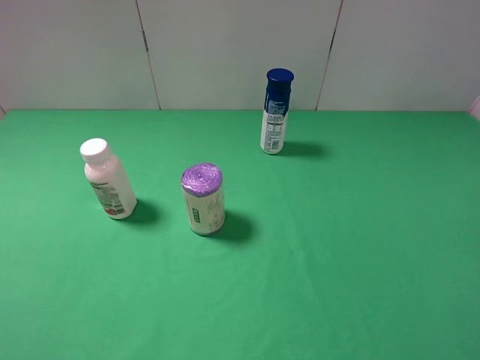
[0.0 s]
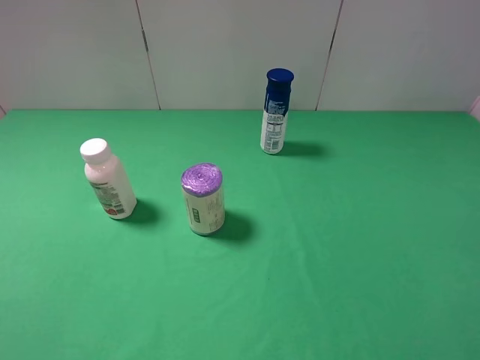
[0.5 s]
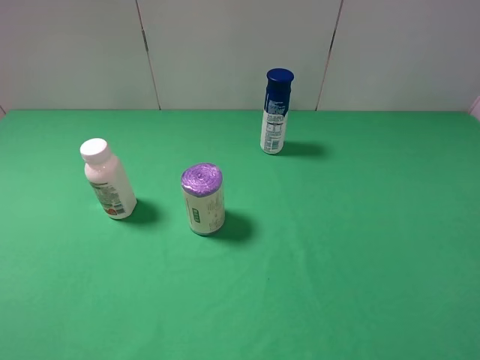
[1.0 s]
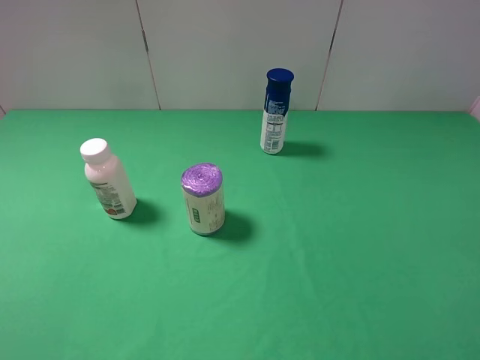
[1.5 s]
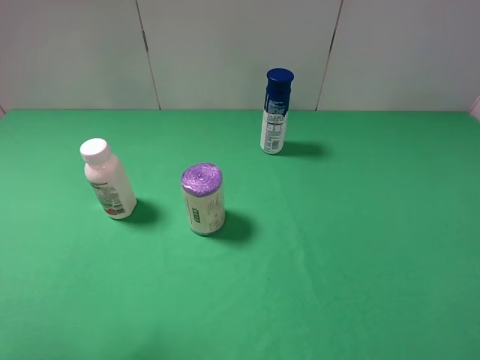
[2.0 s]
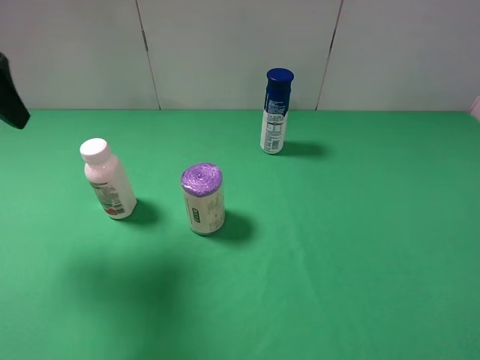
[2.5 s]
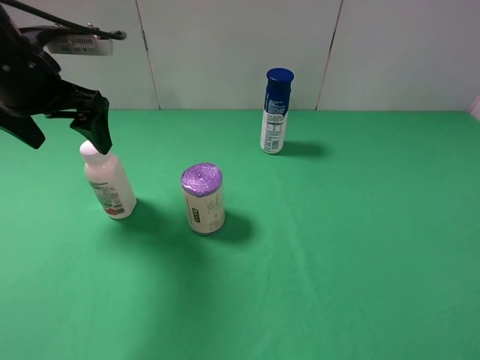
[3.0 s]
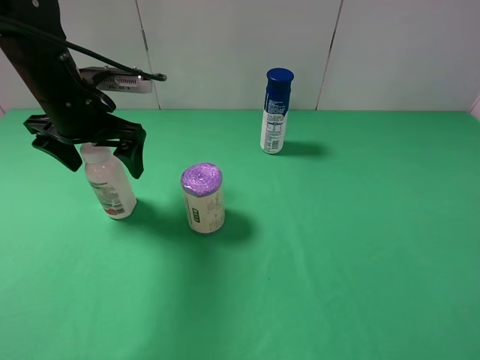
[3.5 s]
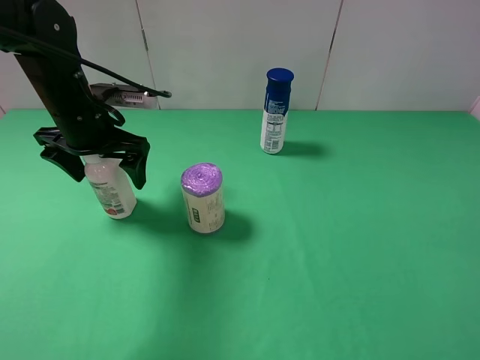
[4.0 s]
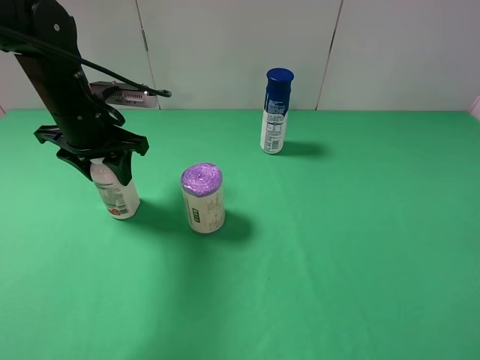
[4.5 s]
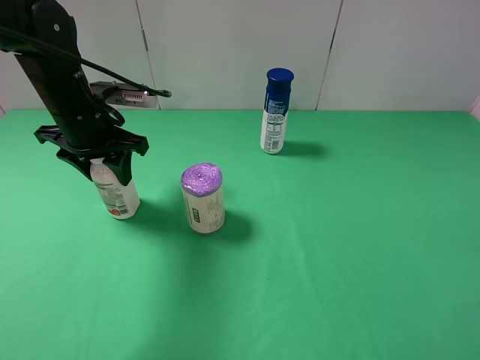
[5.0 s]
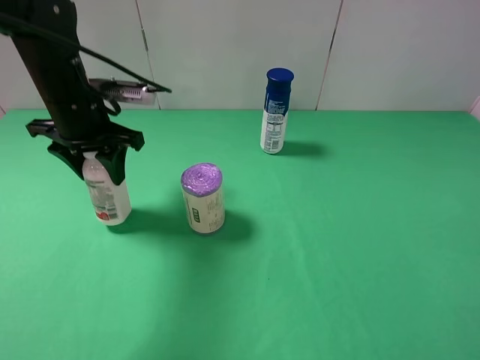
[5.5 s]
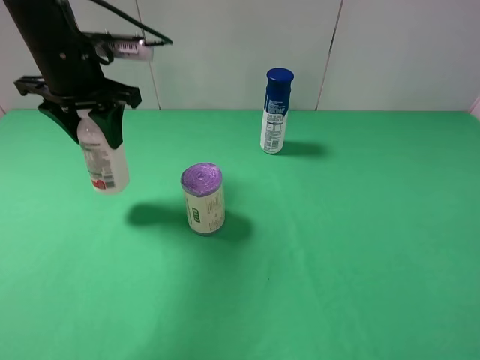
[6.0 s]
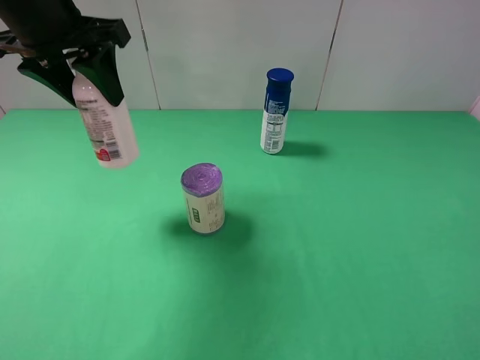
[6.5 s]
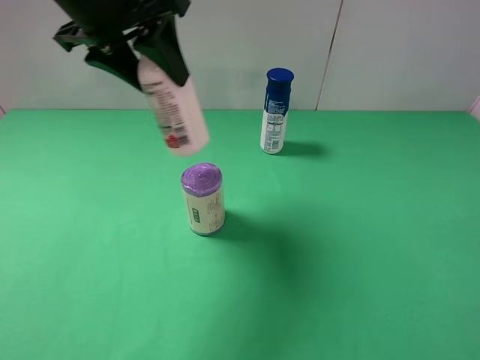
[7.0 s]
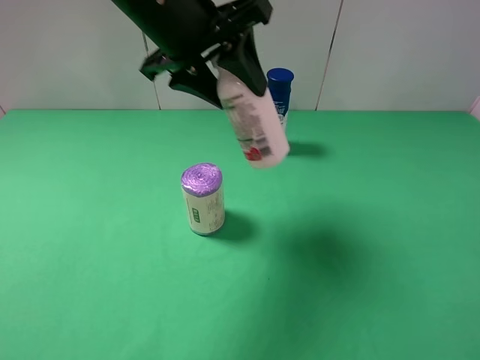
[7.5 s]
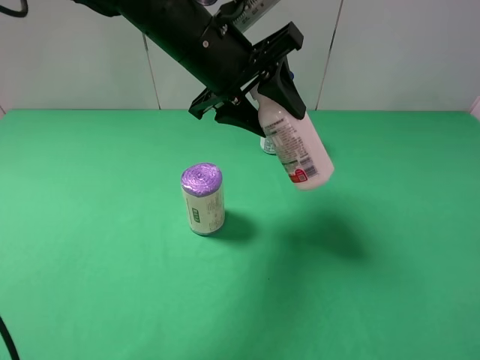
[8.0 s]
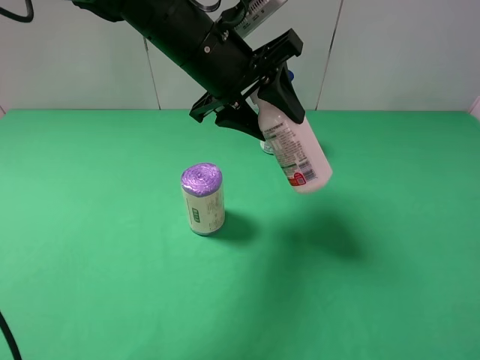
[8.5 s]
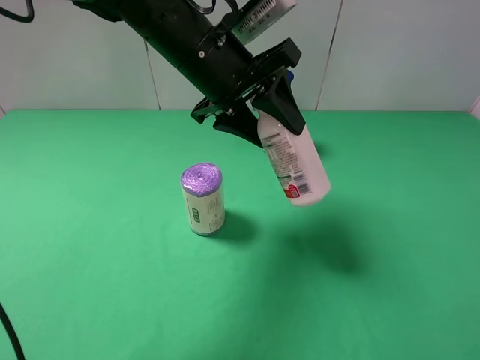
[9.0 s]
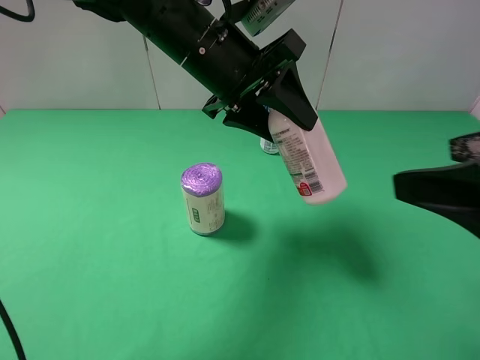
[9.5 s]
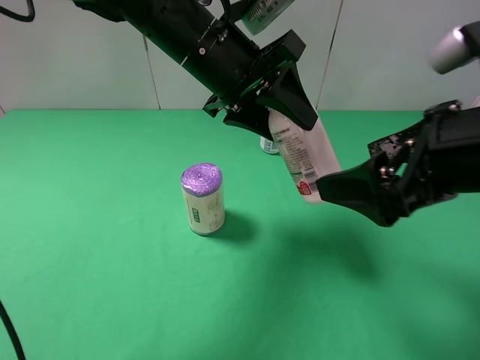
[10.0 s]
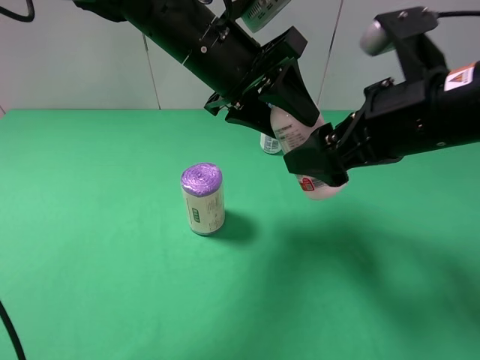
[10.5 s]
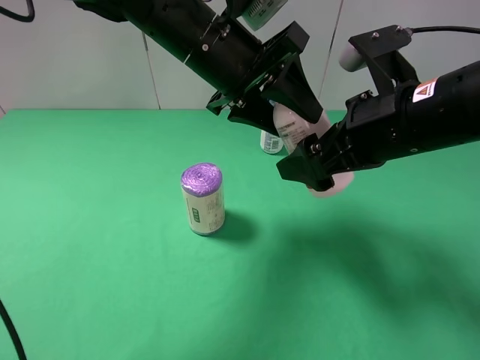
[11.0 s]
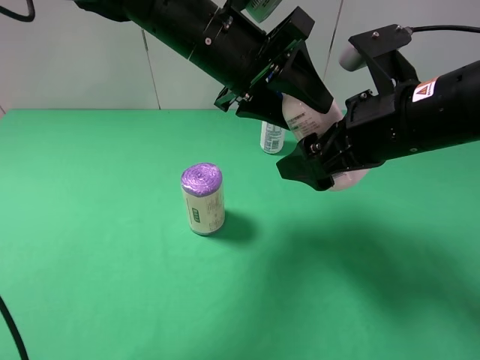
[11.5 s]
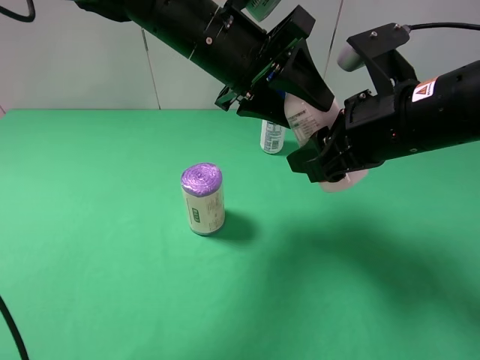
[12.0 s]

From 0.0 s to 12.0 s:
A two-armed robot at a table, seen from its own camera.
Task of the whole recording: use the left gripper to pick up the item and transfer it from the left gripper to the right gripper.
Step, from 0.0 s to 4.0 s: Use the left gripper to grab the milk on the left side of the table.
From 2.0 s to 4.0 s: The left gripper is displaced forward, downward and to the right by roughly 30 cm.
From 4.0 s to 6.0 s: The left gripper goes roughly 10 cm upward, and closes.
From 6.0 s to 8.0 s: The left gripper travels to the right by approximately 15 cm.
From 8.0 s to 10.0 s: The right gripper travels forward and to the left by some 20 cm.
From 10.0 s to 12.0 s: The right gripper moves forward, about 5 cm, and closes its fingers.

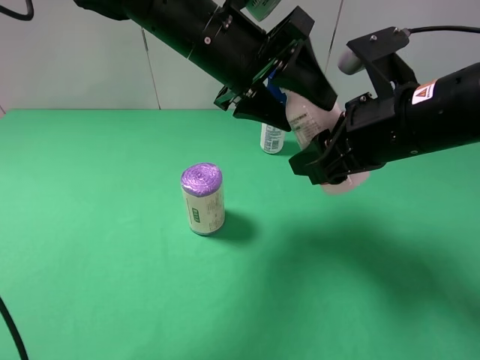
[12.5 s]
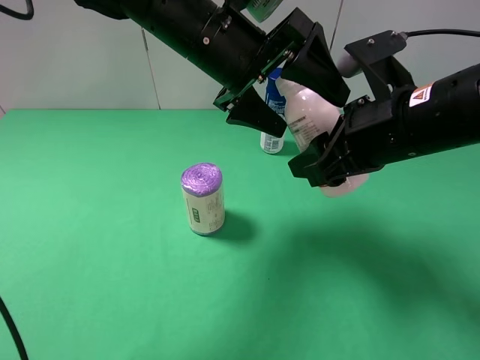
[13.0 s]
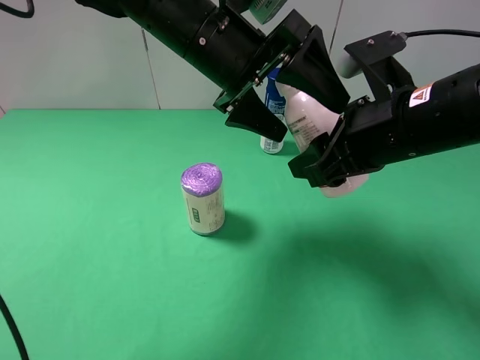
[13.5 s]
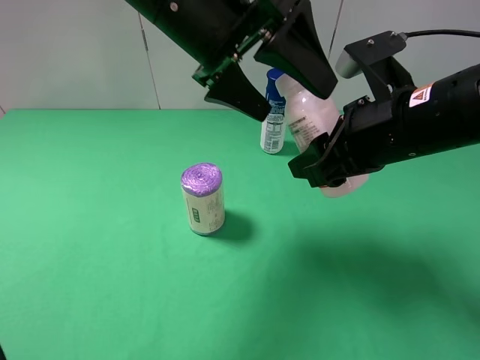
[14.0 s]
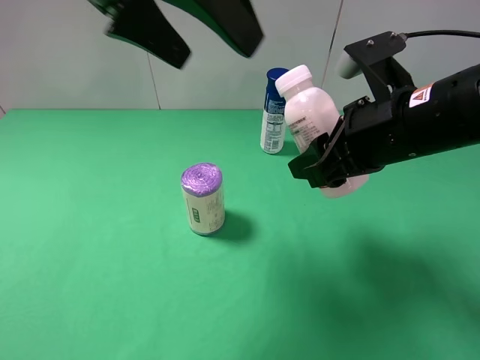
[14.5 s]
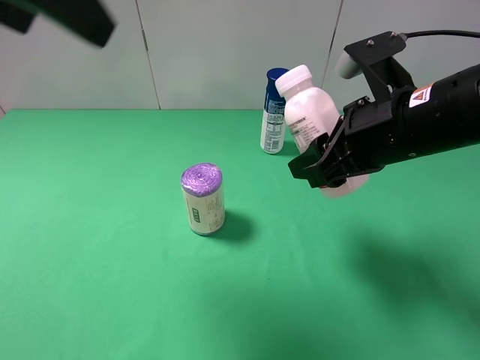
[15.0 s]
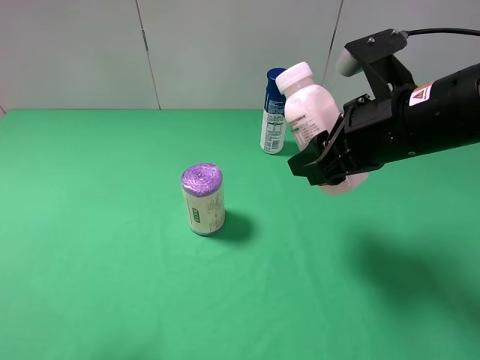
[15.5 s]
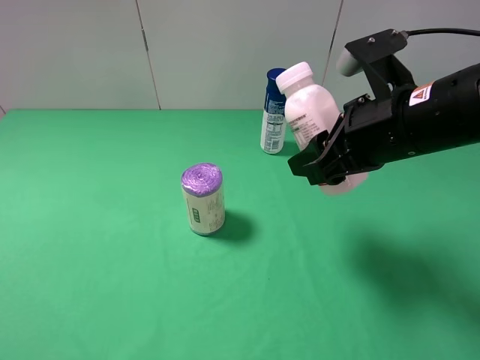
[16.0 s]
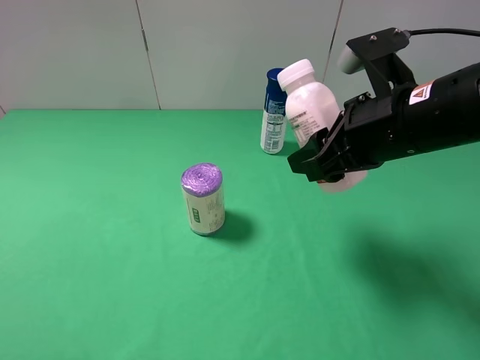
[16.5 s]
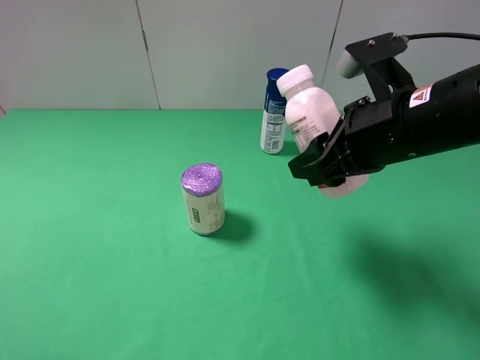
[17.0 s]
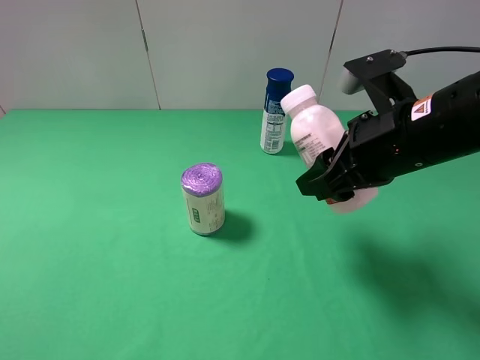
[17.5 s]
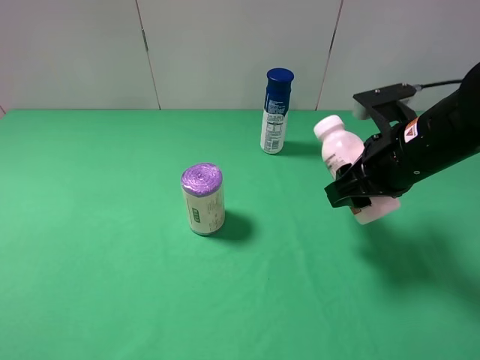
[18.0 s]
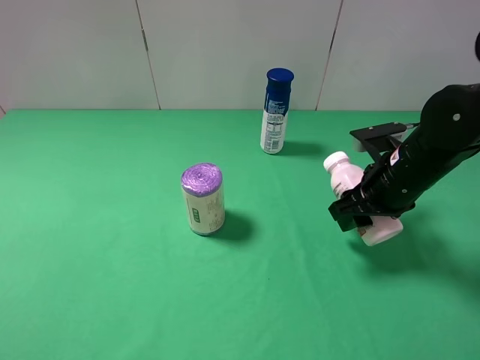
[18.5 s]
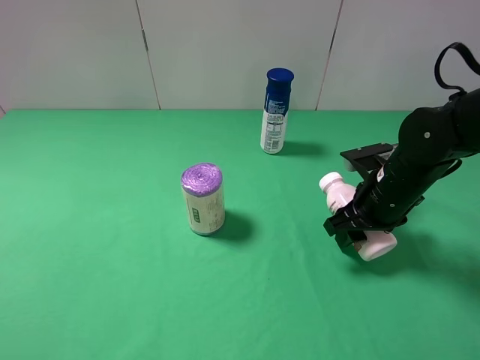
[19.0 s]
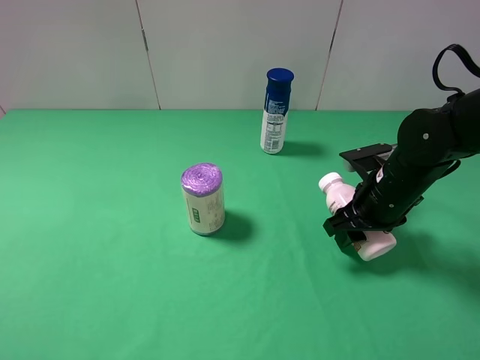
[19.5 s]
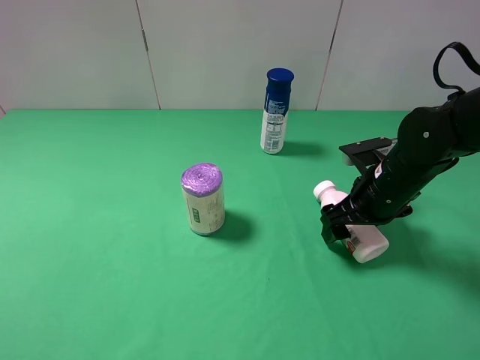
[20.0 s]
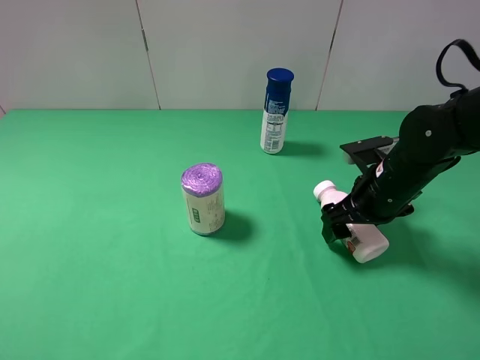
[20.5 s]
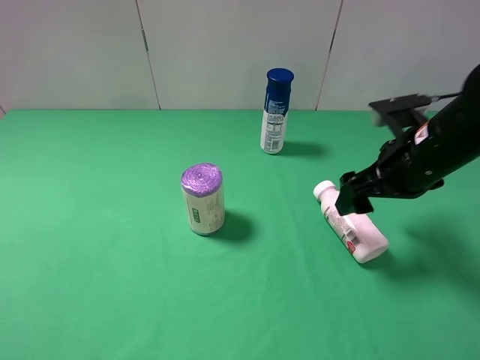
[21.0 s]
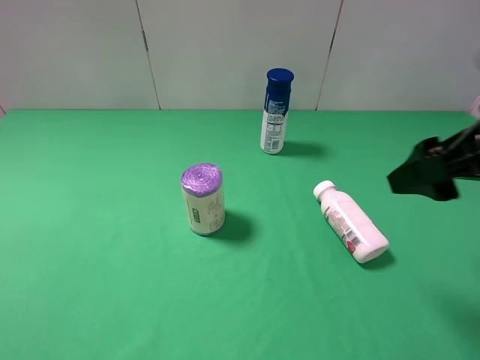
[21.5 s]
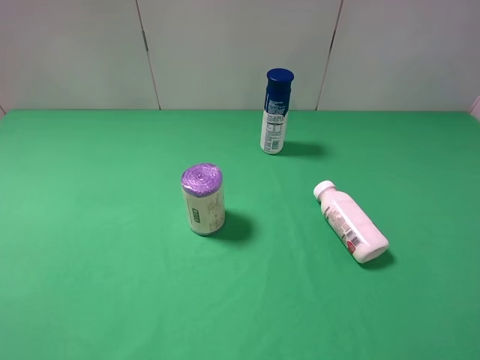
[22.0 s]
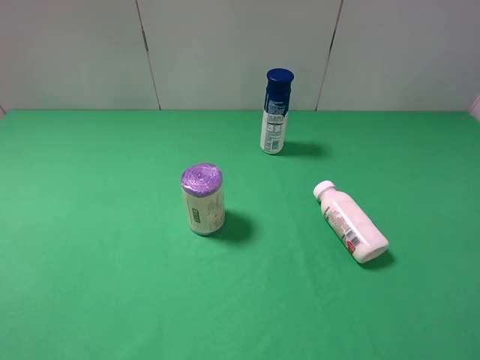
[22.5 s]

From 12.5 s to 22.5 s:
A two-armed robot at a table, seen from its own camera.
Task of the whole recording: use the left gripper to pick up the item and transfer it from the left gripper to the right gripper.
Step, from 13.0 s to 20.0 s: The right gripper places milk on the right side of the table.
From 12.5 s to 14.5 s: The left gripper moves upward, to the left and backward, some 15 cm, and opens its fingers.
From 14.5 s to 16.5 s: The left gripper travels backward, to the left and downward by approximately 35 cm.
From 16.5 s to 18.5 s: The right gripper is displaced downward and to the right by roughly 10 cm.
From 18.5 s to 20.5 s: The right gripper opens.
From 20.5 s to 22.5 s: The right gripper shifts about 35 cm backward and upward.

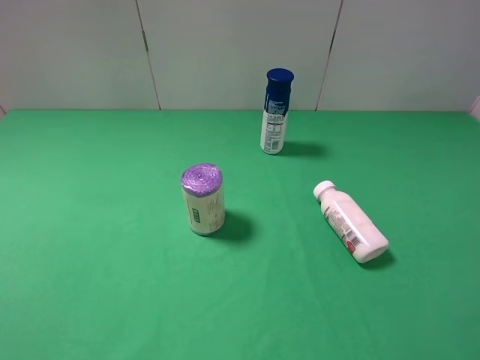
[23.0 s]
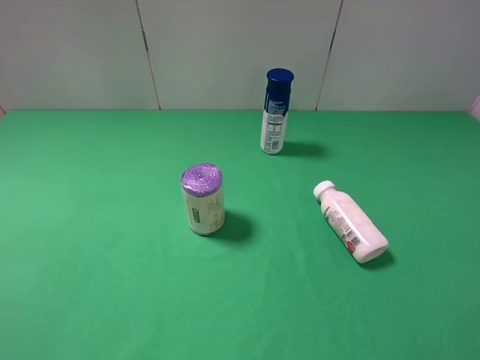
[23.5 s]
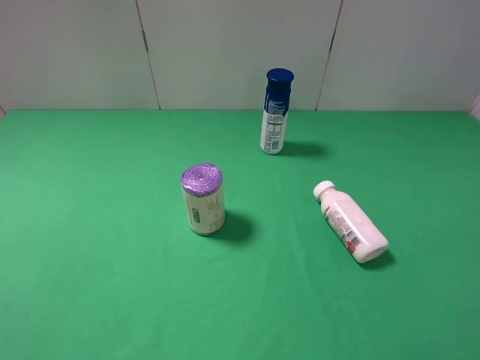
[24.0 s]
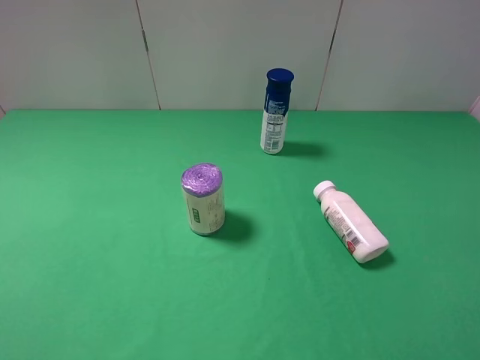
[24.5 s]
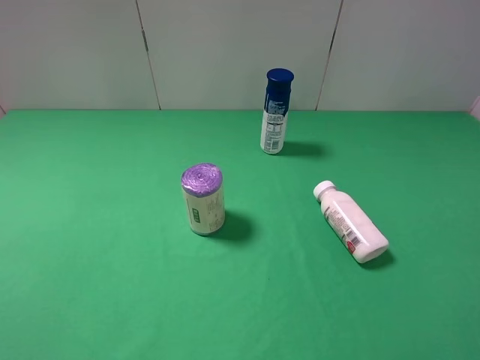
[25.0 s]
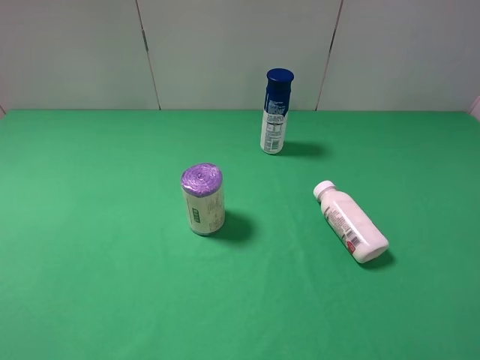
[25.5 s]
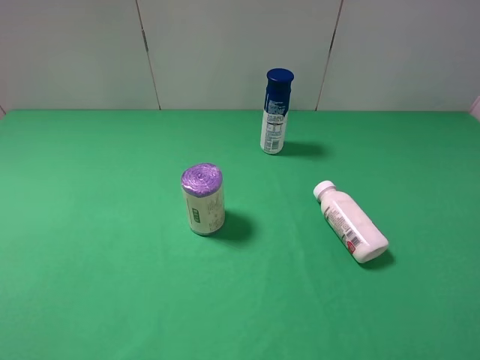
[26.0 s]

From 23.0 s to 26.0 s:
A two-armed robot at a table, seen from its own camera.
Task of the whole recording: use the left gripper to pick up the item and transfer it from the left gripper to the right gripper.
From 24.5 s to 26.0 s: The two grippers keep their place.
